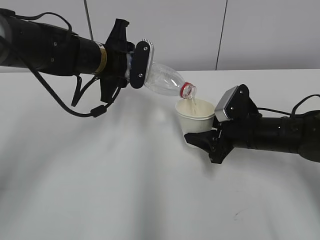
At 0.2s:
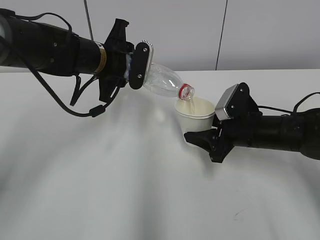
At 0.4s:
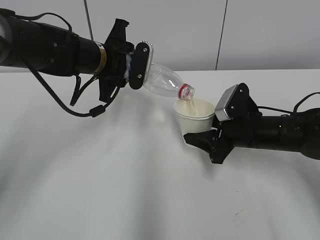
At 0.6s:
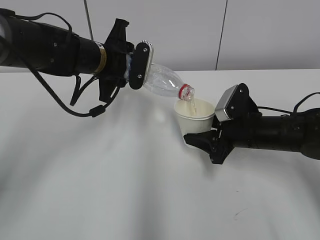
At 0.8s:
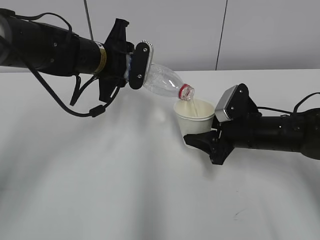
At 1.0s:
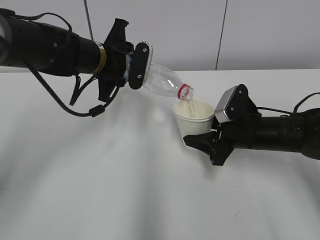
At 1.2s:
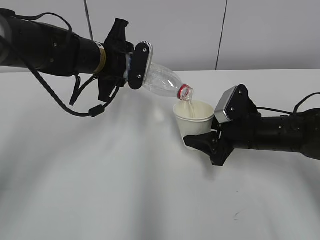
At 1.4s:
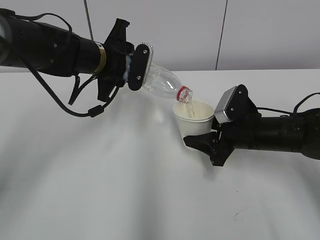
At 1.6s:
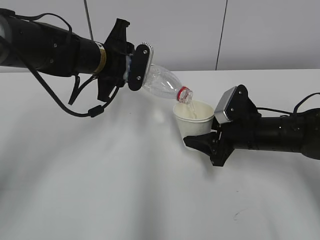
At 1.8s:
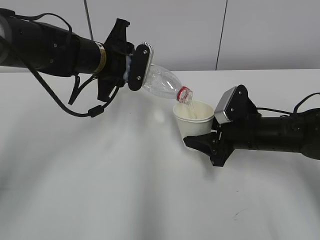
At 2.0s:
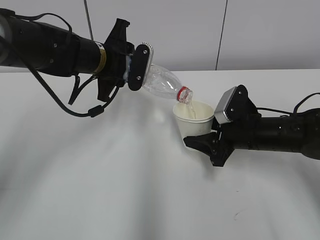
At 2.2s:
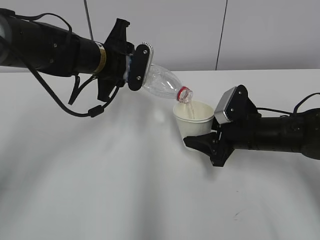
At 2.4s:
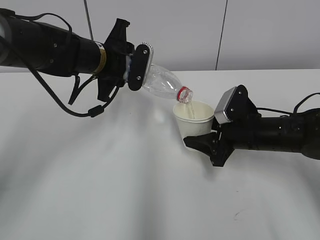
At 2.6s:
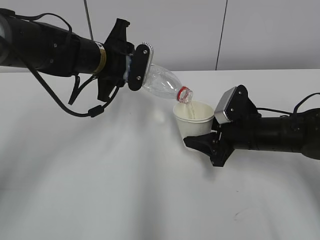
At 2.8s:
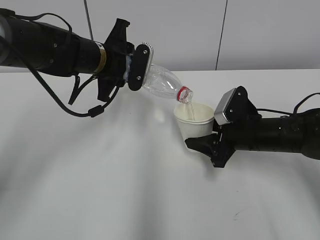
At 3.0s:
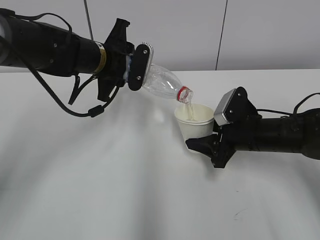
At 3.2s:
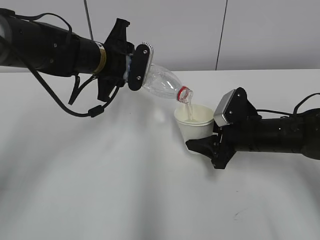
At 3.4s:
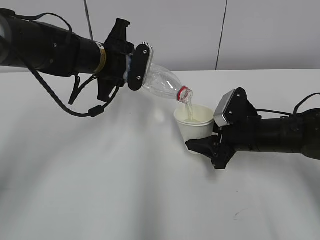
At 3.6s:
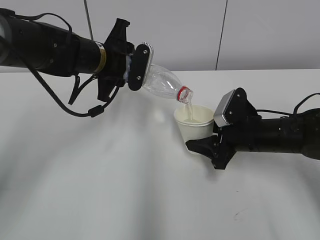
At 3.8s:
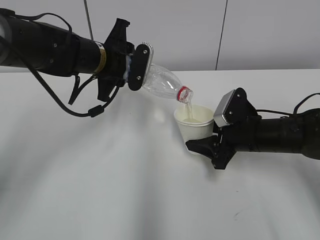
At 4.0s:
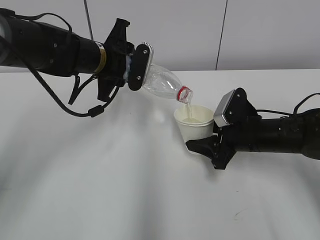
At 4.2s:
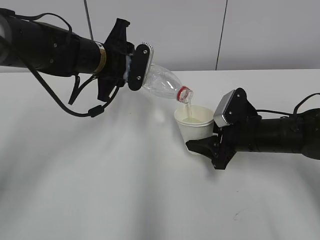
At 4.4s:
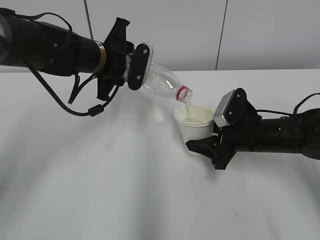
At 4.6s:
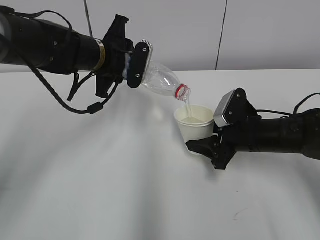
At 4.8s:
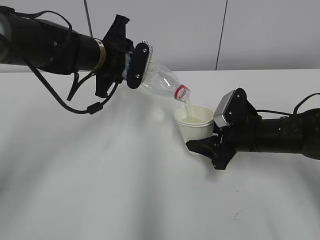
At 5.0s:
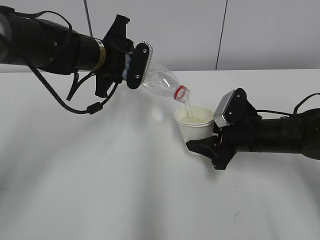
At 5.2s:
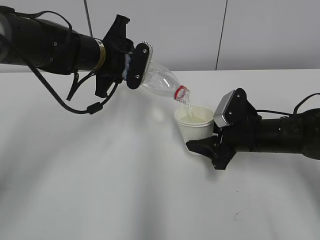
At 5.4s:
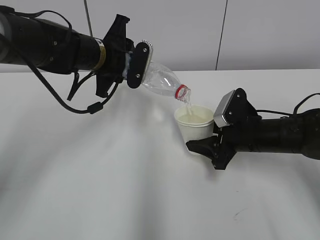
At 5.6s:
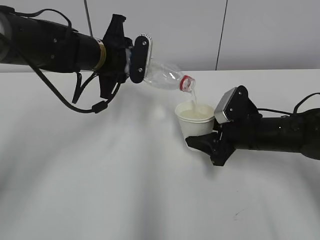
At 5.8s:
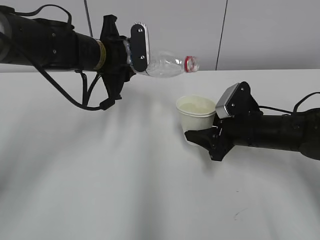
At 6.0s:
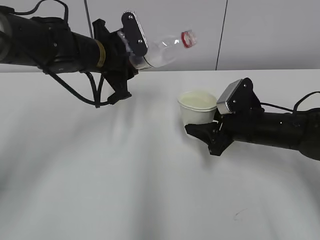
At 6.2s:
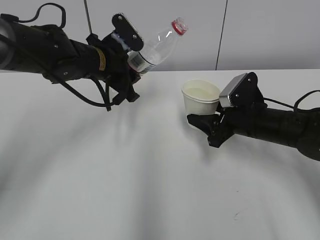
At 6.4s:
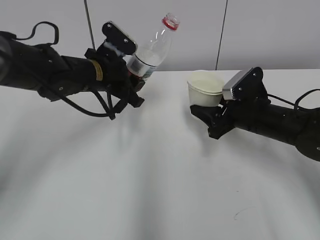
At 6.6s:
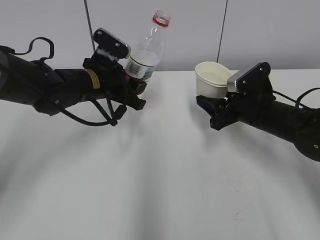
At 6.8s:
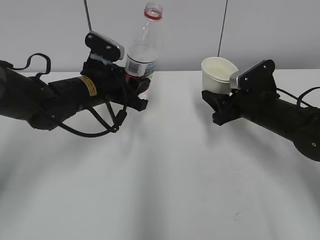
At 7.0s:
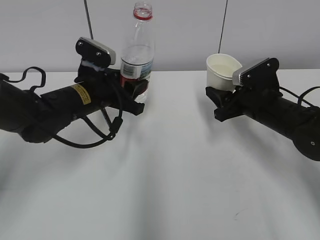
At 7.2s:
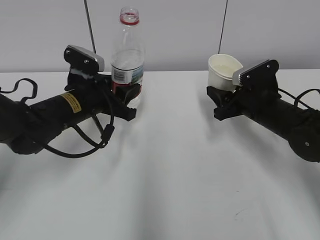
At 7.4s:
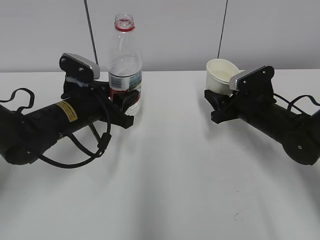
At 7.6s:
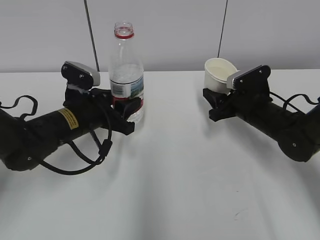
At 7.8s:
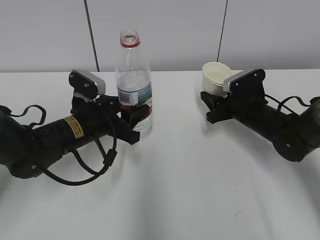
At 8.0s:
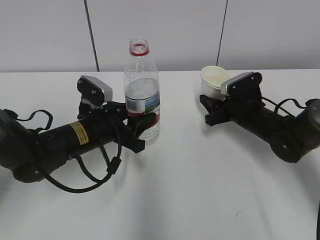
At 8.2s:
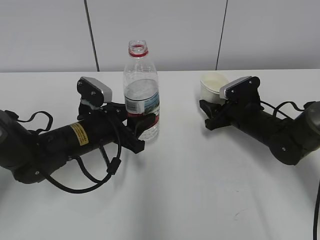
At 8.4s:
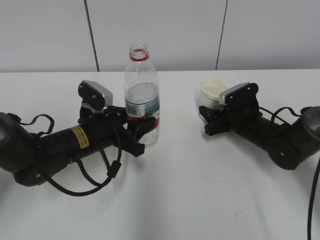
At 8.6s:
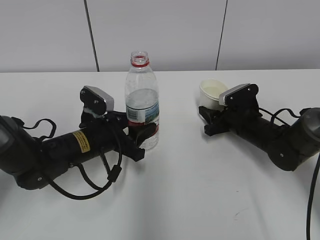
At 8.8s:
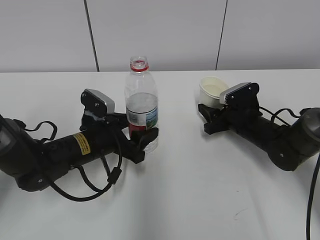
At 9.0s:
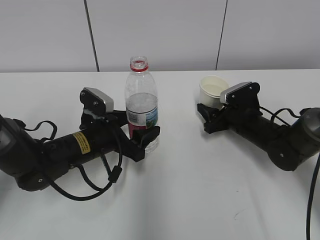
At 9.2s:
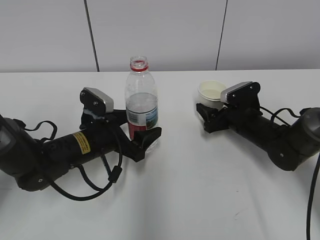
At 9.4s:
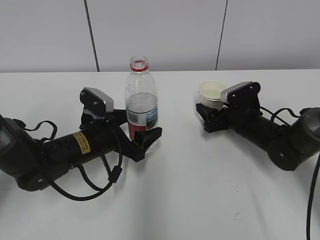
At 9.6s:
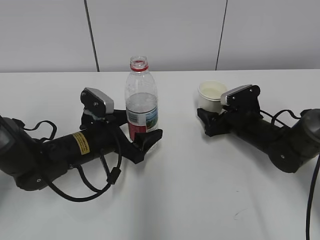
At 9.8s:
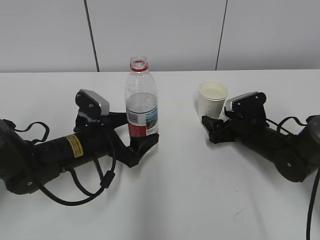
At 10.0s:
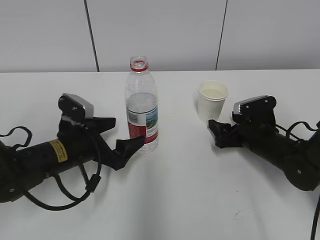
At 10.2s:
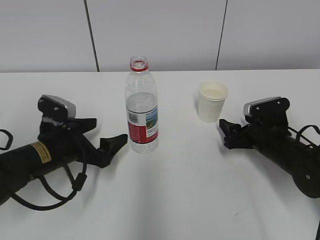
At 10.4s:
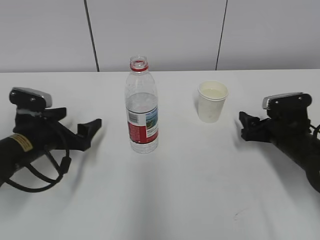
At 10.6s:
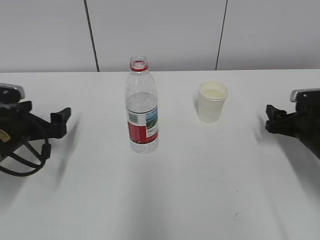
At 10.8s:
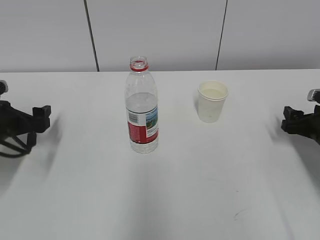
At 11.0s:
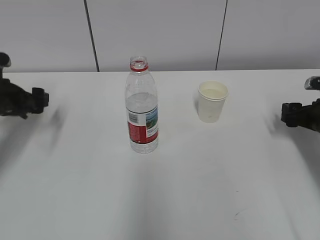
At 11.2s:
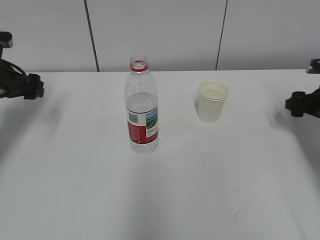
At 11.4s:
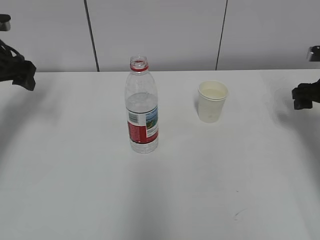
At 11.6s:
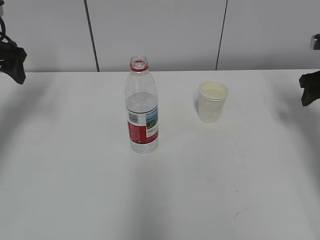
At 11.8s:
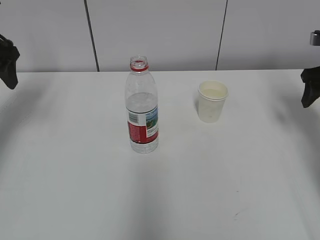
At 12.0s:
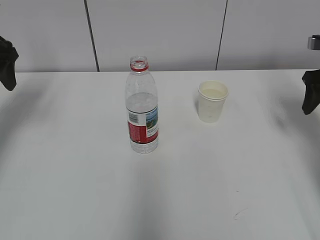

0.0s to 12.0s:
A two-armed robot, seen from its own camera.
Step, 0.0s to 2.6s: Fill water with the right hand.
Step, 0.0s to 2.6s: Pour water with the left hand.
Step, 4.0s to 5.2s: Place the water bottle with the left hand.
Step, 5.4s to 5.8s: Place the paper cup with the right hand.
0.0s to 4.4s: Both grippers stay about where they are.
6.0s to 7.6s: The left gripper goes roughly 10 cm downward and backward, while the right gripper ends up some 5 cm from where it was.
7.6s to 9.0s: The left gripper ends up roughly 5 cm from where it was, and opens. Meanwhile the right gripper opens.
9.0s to 10.4s: The left gripper shifts some 10 cm to the left, and opens up; the right gripper goes roughly 10 cm backward and to the right, and opens.
10.4s to 12.0s: The right gripper travels upward and to the right by roughly 20 cm. The left gripper shifts approximately 25 cm upward, to the left and forward.

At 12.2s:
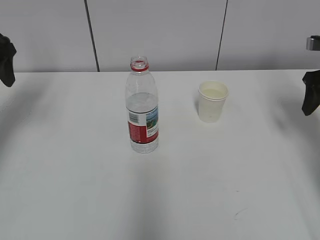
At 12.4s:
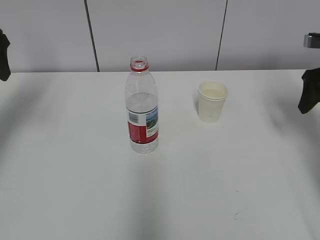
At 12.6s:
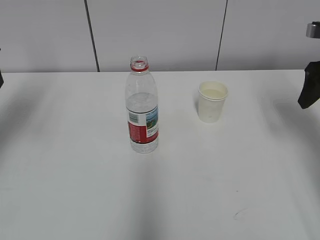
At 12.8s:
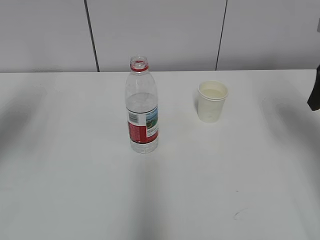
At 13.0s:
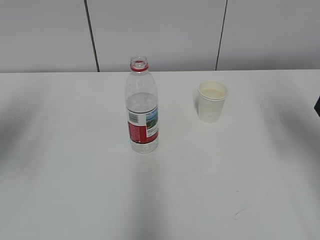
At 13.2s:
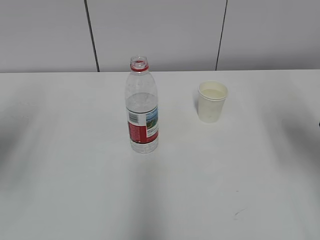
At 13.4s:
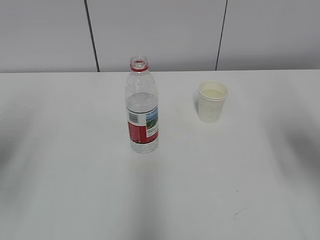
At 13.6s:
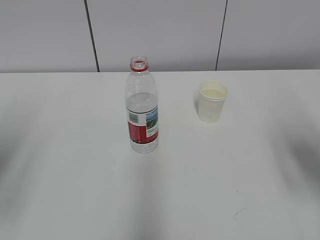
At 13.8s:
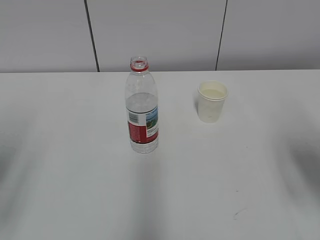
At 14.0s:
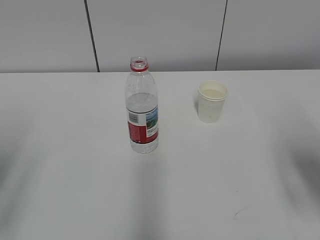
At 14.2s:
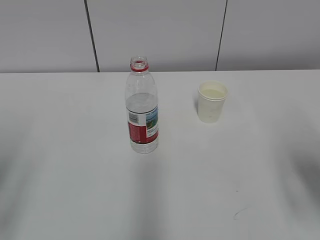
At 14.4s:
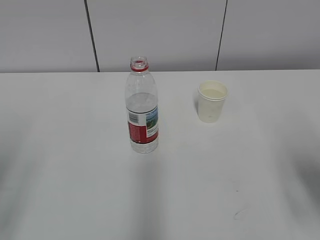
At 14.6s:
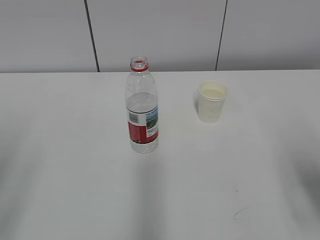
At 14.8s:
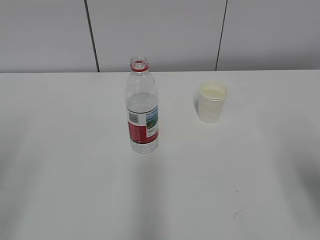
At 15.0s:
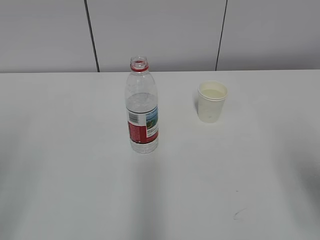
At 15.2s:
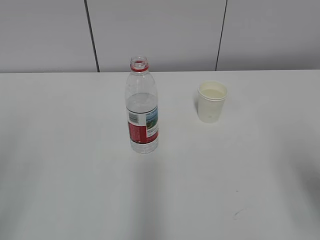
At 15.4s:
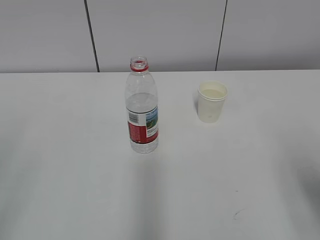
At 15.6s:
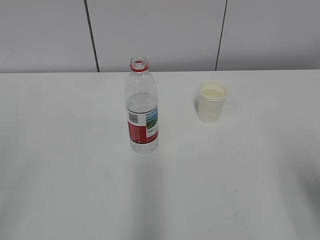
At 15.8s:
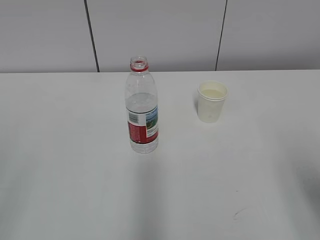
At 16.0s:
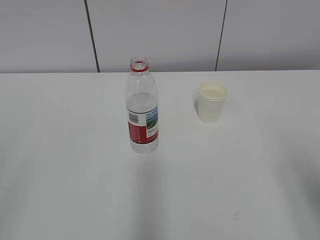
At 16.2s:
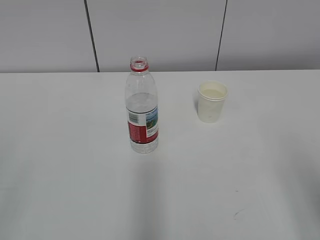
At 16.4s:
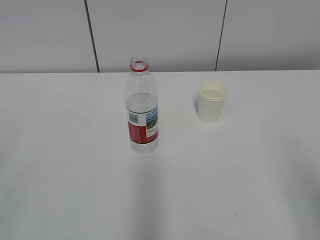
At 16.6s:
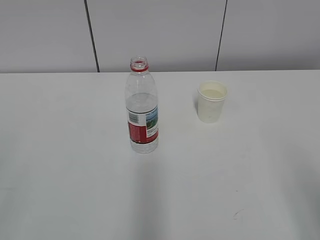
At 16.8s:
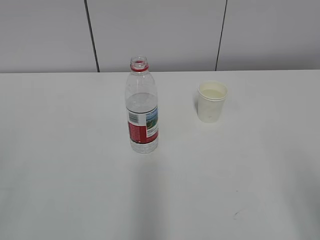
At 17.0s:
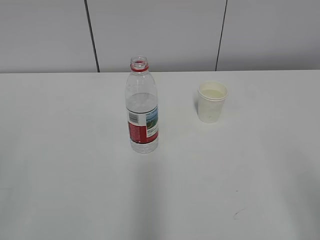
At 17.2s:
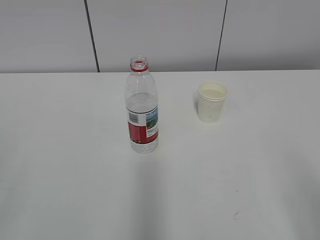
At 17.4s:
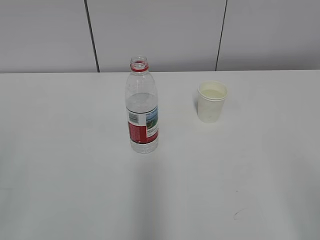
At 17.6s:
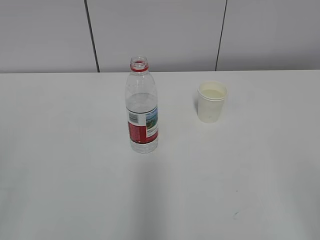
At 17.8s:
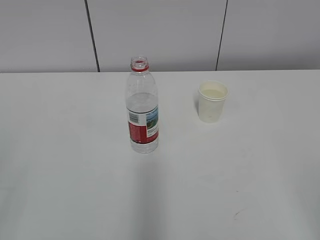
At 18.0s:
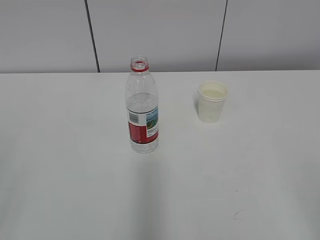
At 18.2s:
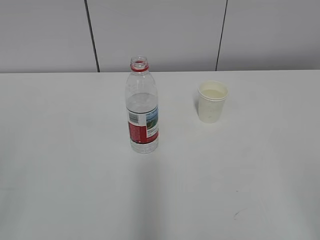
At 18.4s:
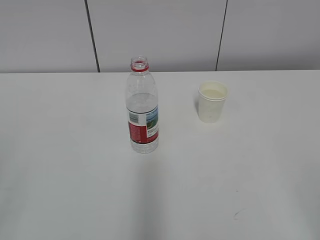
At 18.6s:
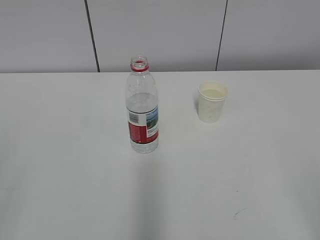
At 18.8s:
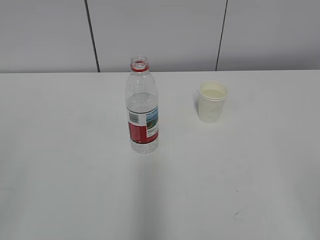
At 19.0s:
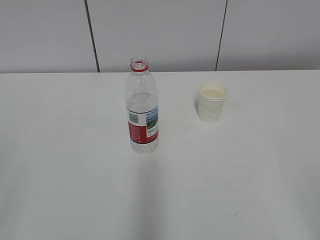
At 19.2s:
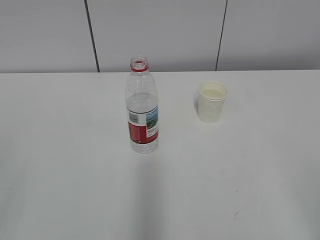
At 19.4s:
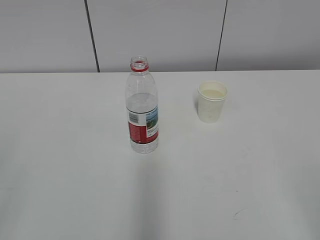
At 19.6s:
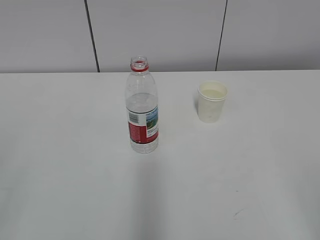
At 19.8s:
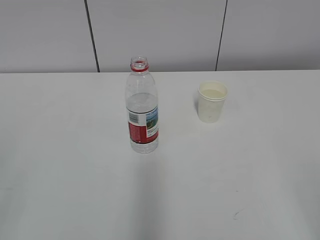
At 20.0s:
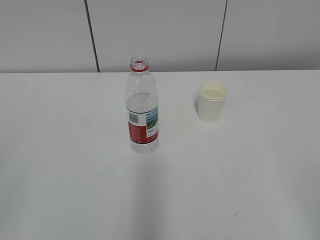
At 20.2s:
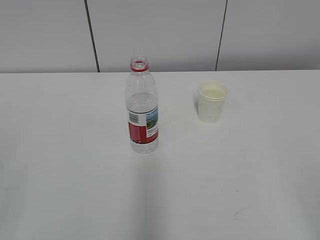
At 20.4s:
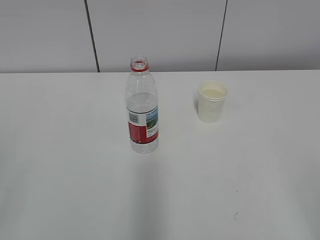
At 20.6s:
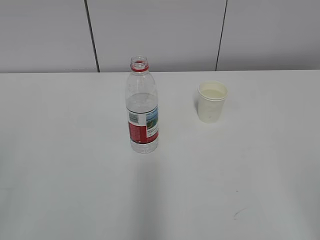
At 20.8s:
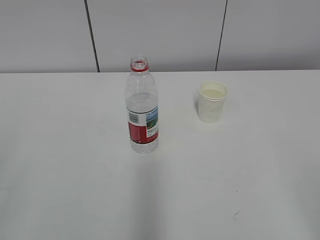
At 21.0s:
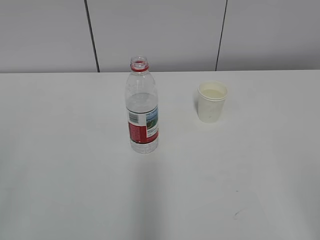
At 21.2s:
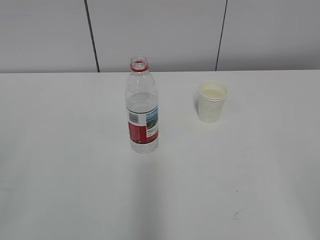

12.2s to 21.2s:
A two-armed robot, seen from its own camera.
12.2s to 13.8s: Both grippers travel together backward, approximately 20 cm.
13.8s to 15.2s: The right gripper is displaced backward by approximately 10 cm.
18.2s to 21.2s: Both grippers stay about where they are.

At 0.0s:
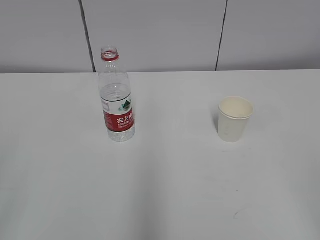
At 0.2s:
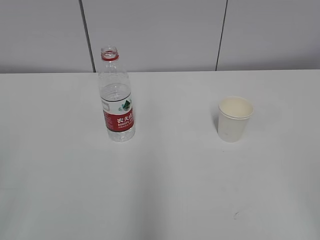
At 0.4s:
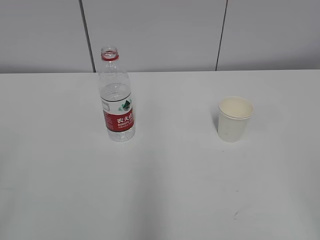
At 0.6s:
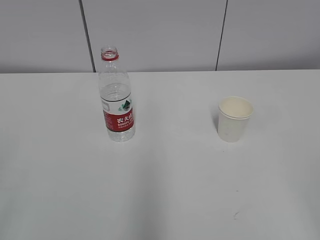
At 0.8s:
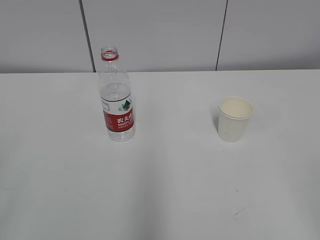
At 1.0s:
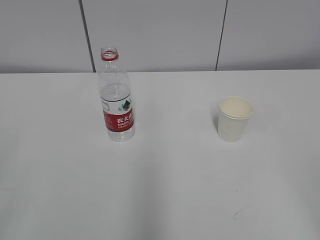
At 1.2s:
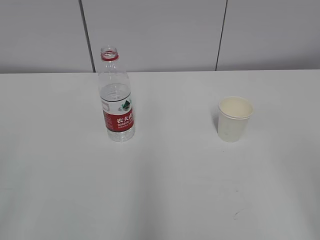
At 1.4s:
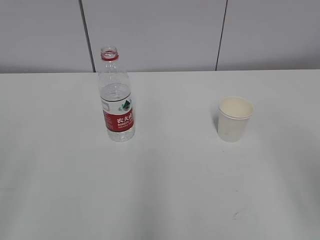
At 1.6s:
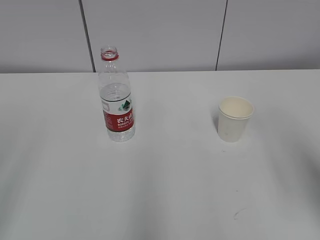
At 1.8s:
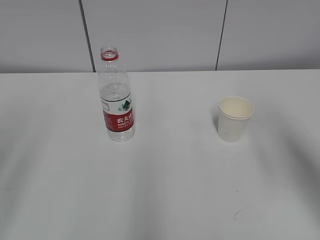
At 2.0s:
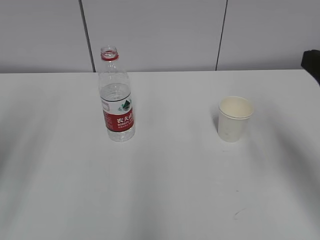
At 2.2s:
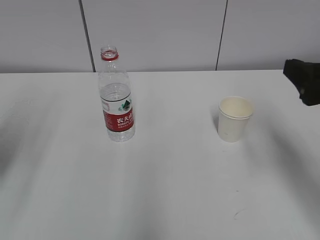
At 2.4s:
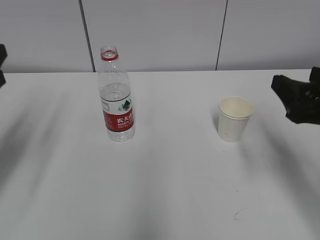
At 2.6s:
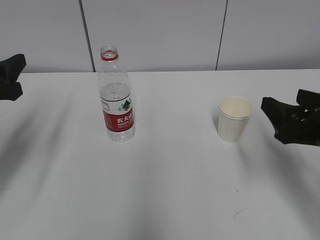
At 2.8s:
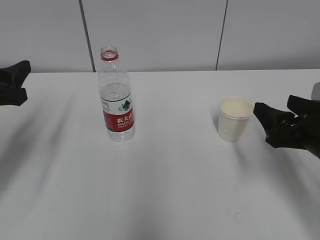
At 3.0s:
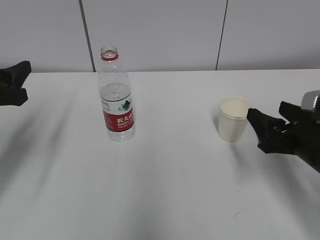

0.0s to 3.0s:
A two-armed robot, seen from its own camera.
1.6s to 3.0s: The left gripper shifts some 25 cm forward and downward, while the right gripper goes about 20 cm downward and forward.
